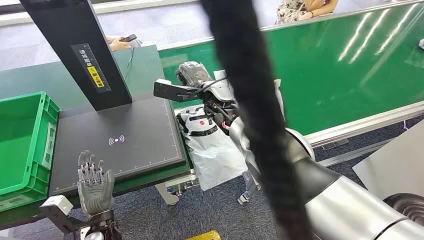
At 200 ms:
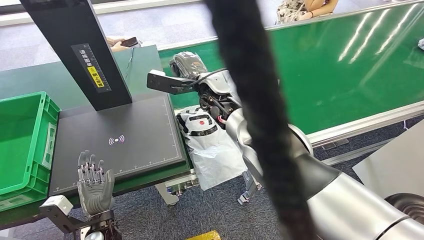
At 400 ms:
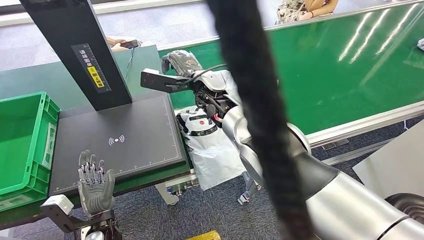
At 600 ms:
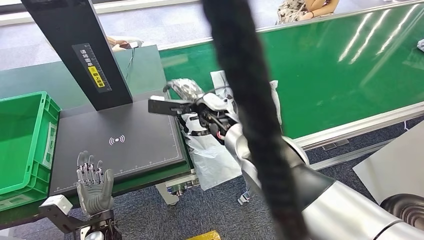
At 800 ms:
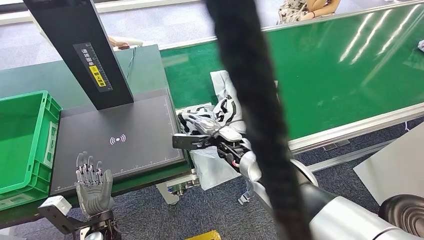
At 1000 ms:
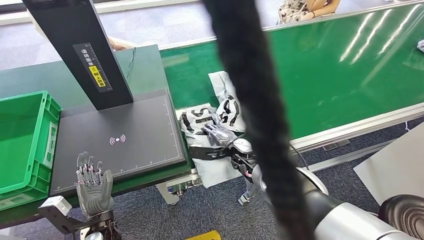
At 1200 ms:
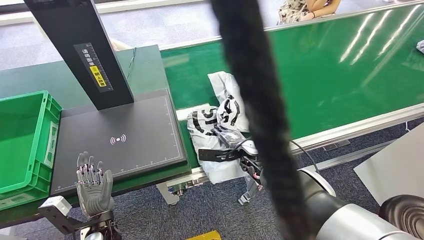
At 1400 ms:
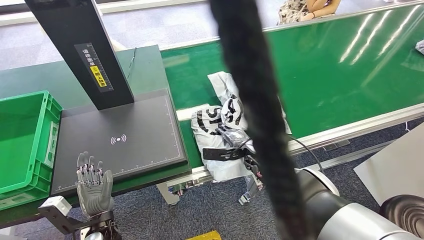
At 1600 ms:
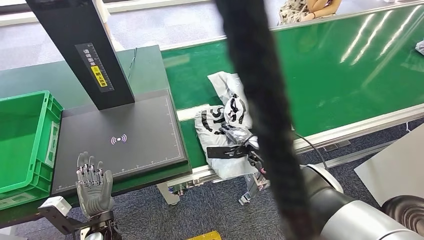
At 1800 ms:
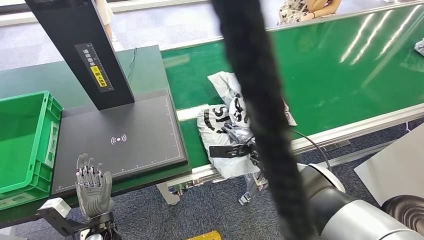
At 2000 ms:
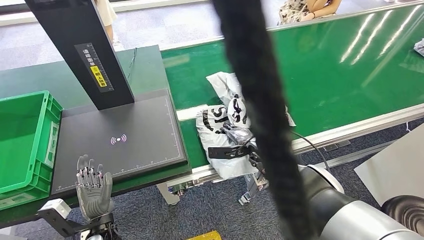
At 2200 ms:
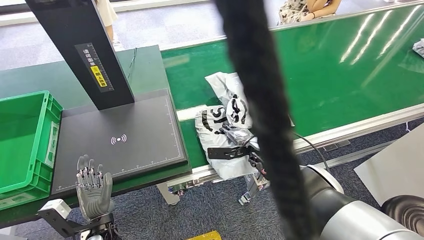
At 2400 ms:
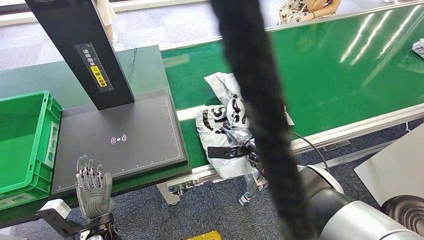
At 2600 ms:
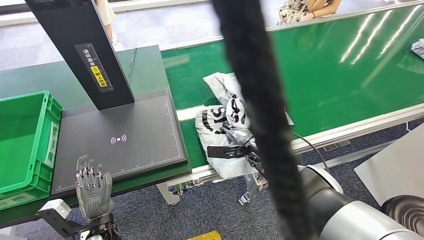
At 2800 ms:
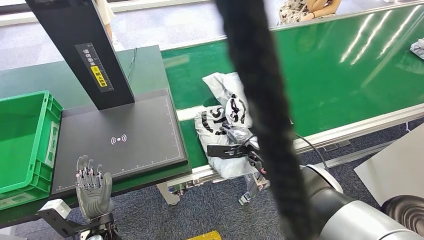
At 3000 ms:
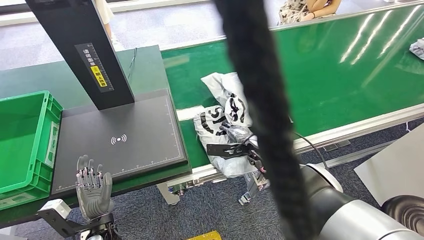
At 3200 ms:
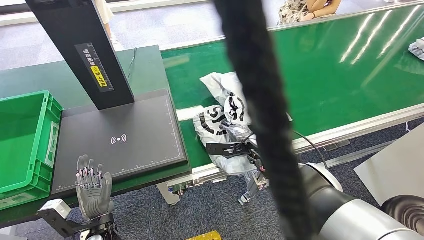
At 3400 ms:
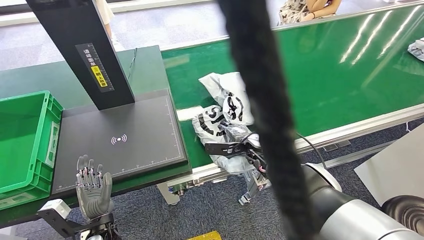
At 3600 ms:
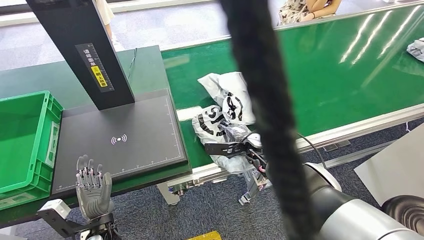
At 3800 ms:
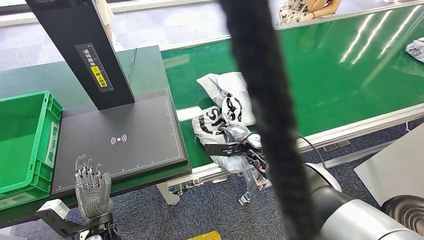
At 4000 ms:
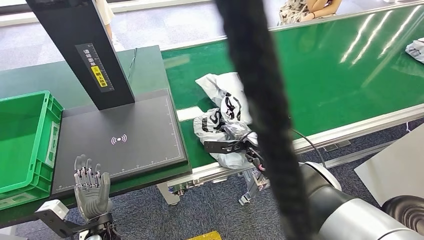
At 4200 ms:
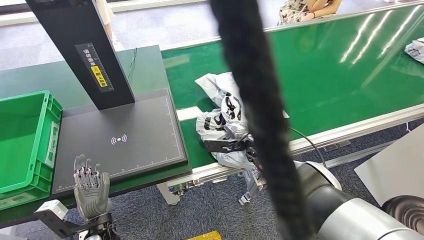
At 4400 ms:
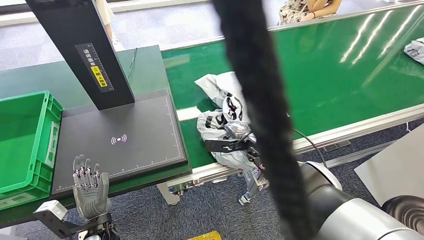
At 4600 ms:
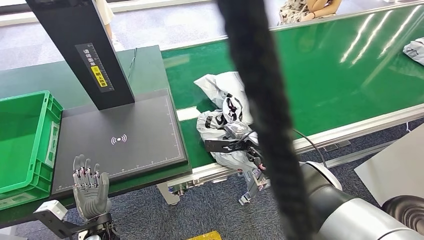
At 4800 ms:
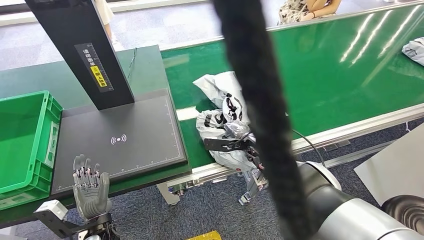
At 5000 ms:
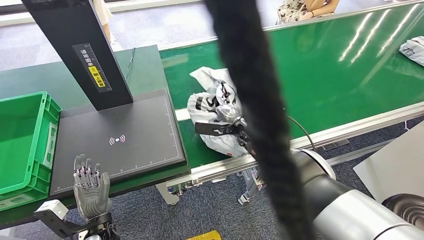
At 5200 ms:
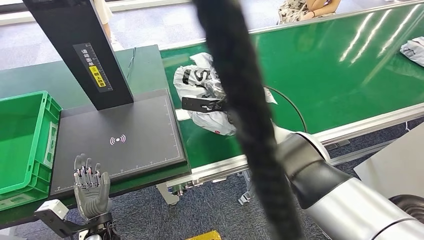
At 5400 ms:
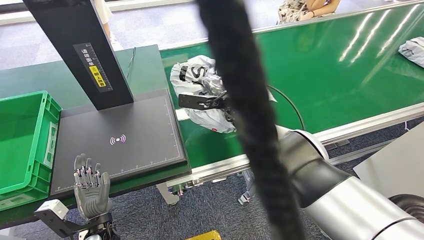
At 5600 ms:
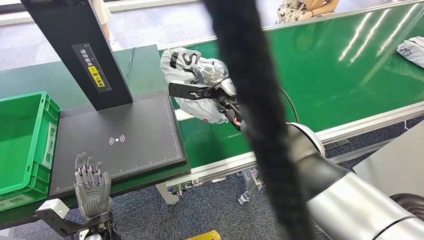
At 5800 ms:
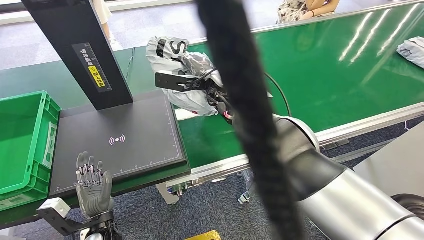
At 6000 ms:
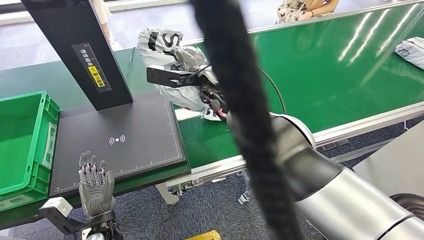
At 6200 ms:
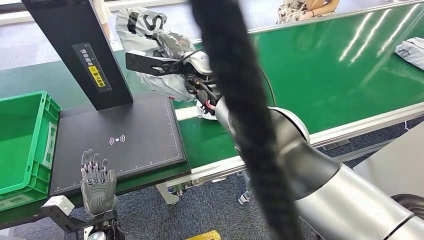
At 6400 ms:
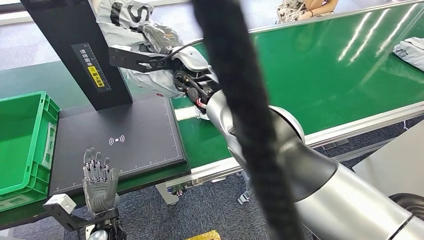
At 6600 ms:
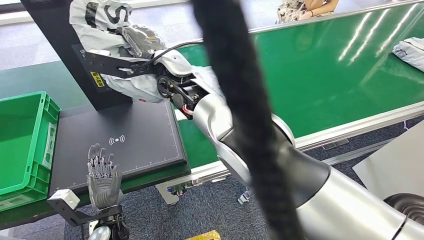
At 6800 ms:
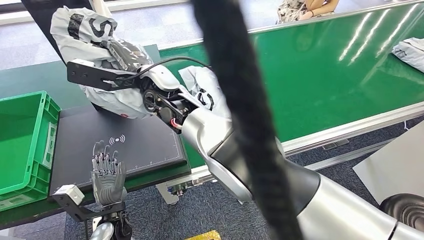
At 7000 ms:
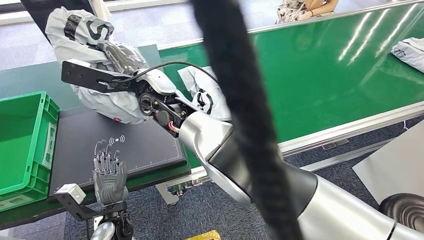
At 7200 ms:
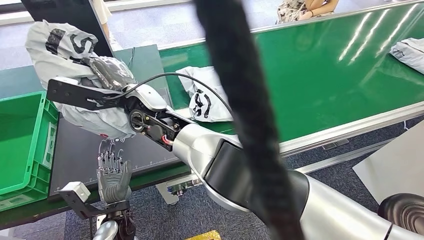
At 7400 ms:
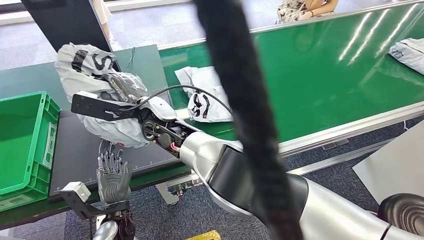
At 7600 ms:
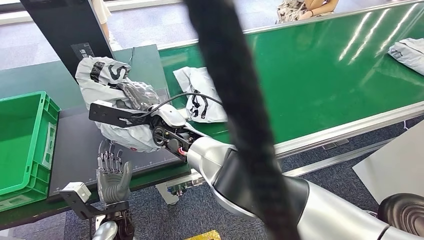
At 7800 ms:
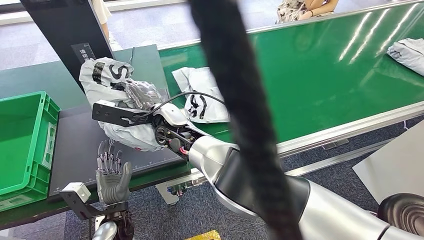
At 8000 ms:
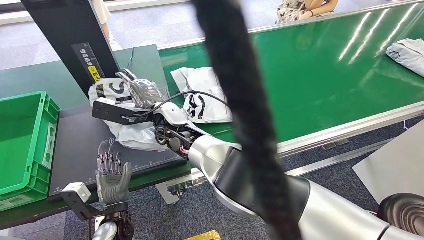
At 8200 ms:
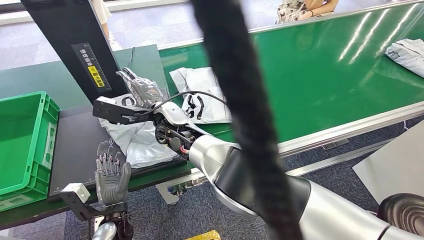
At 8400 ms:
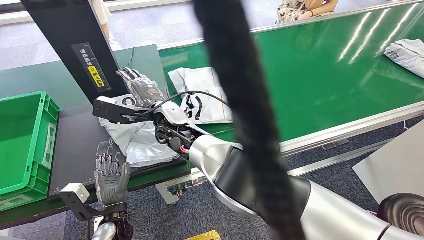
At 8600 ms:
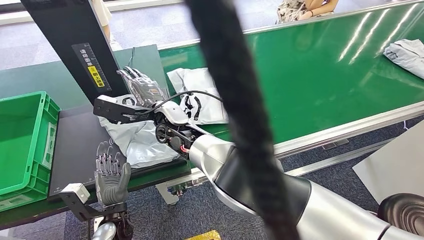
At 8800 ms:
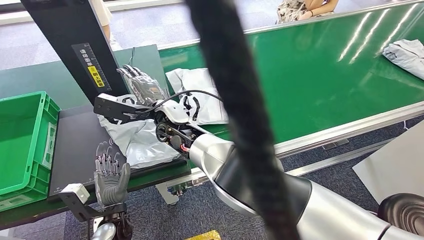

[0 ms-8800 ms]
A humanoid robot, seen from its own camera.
Step, 0 ms to 5600 ms: Pick up the package from the conveyor belt.
Step, 5800 ms to 8800 ms: Place the package onto the inbound machine.
1400 ms to 3000 ms: The hands stay close to where they were, moving slightly.
3000 ms to 4400 ms: Both hands stay about where they are.
7400 ms to 8800 ms: The hands stay close to where they were, moving slightly.
